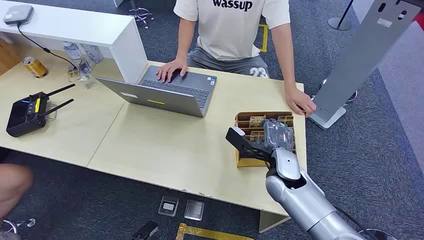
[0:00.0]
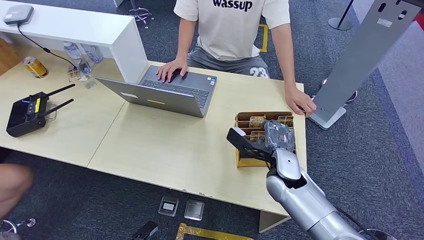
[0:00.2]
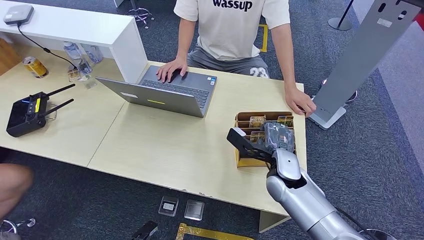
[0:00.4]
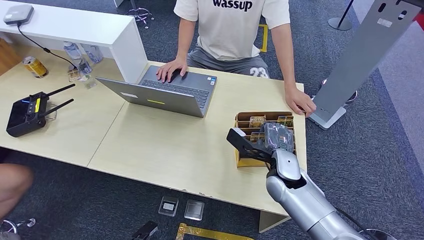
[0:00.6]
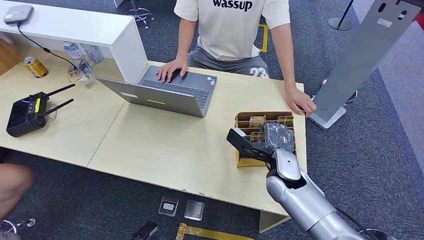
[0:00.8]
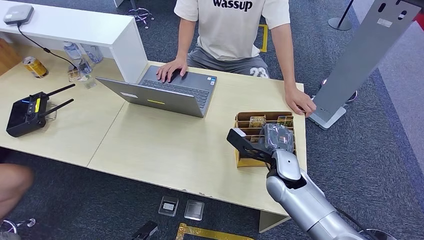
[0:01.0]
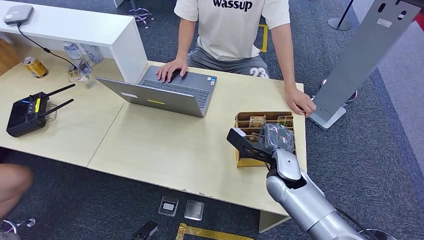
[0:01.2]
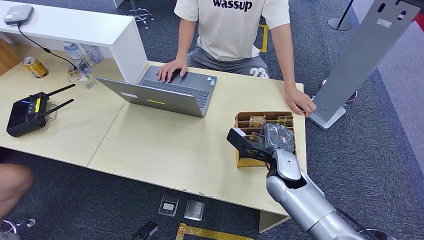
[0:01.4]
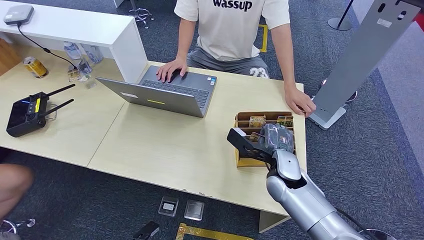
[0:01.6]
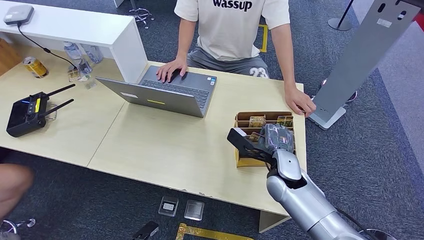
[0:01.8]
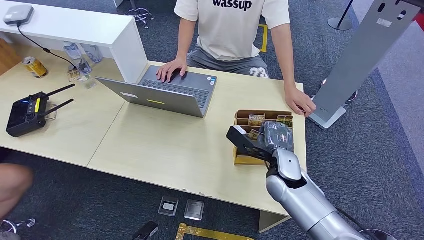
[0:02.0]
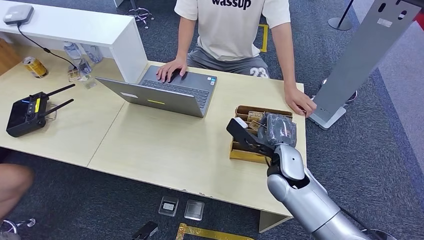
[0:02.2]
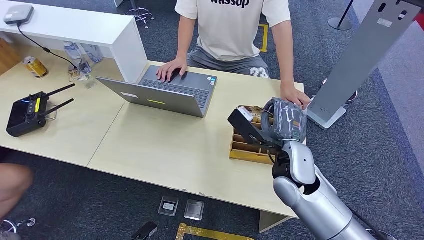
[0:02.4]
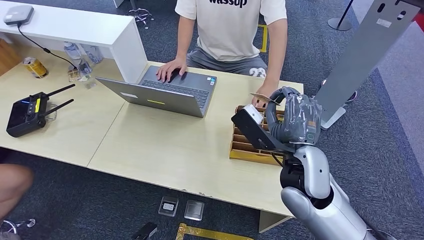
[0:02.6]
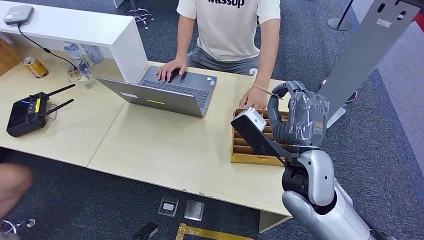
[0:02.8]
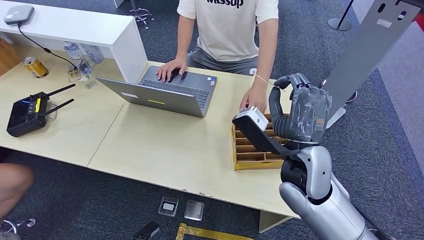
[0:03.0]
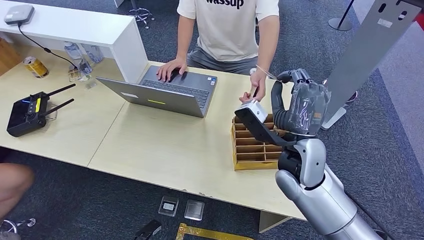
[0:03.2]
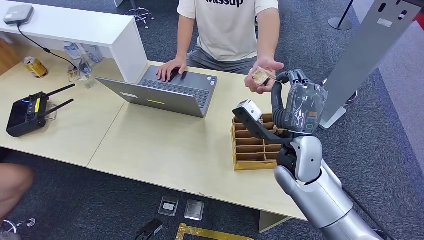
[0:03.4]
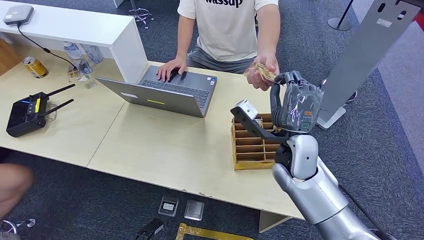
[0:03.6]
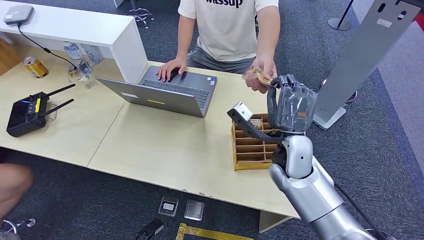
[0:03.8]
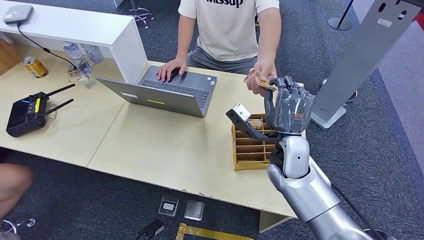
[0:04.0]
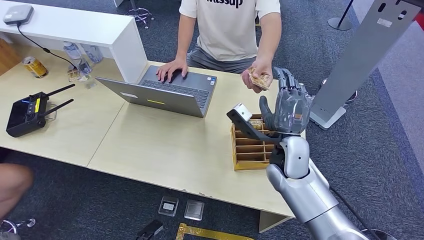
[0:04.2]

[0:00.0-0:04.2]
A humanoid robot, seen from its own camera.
Step, 0:00.0 to 0:02.0: Pick up the key card from the card box.
Step, 0:02.6 to 0:04.2: Hand the key card to the target.
0:01.4 to 0:02.8: The right hand is displaced upward by approximately 15 cm.
0:02.8 to 0:04.2: The right hand is displaced downward by approximately 5 cm.
